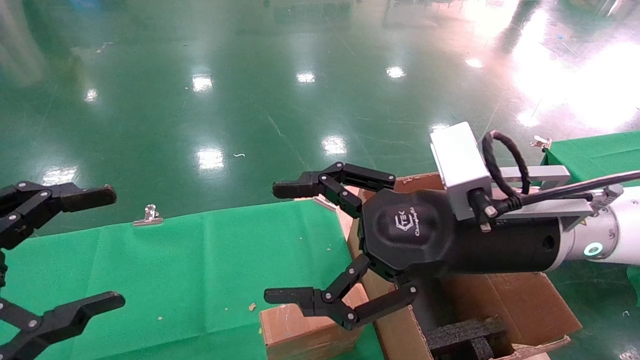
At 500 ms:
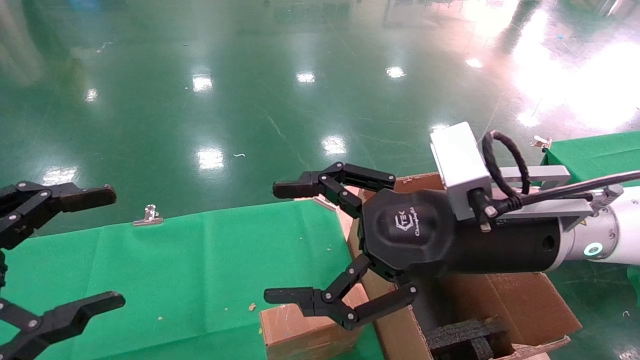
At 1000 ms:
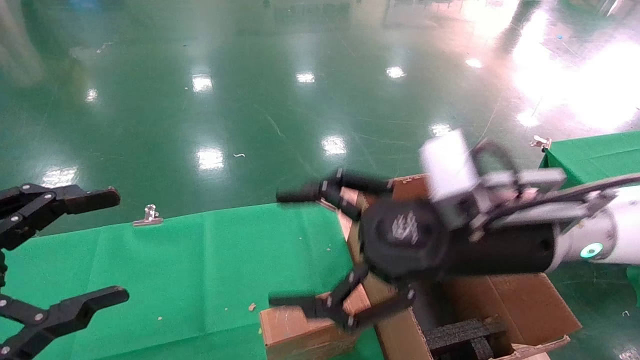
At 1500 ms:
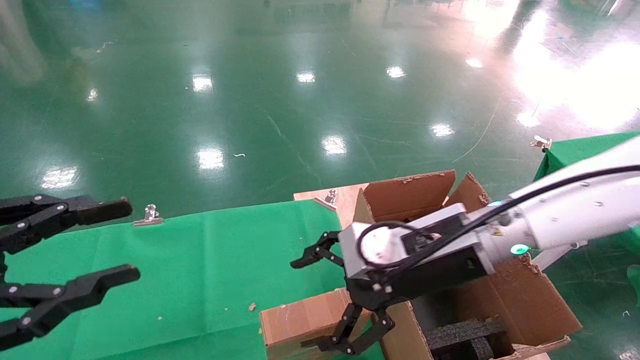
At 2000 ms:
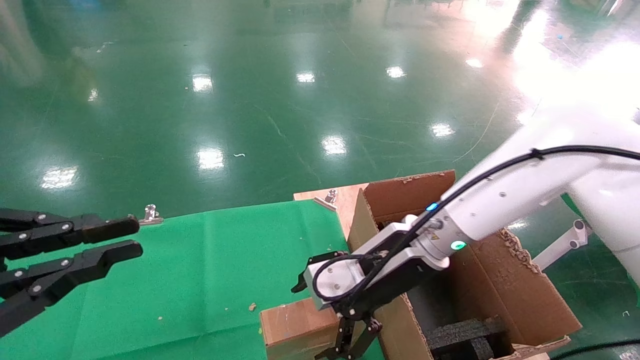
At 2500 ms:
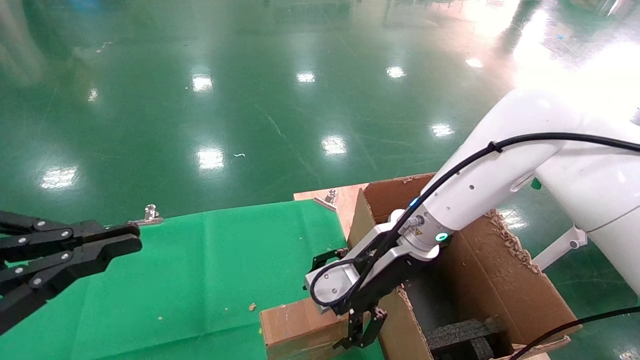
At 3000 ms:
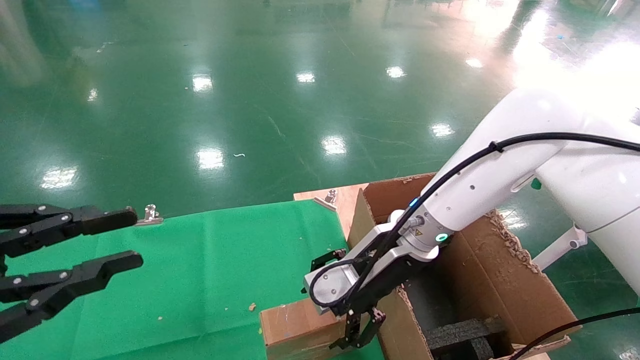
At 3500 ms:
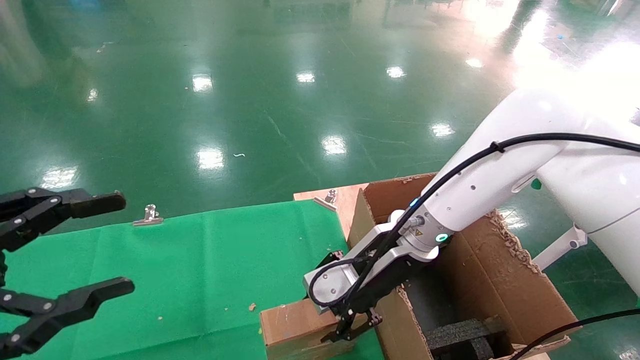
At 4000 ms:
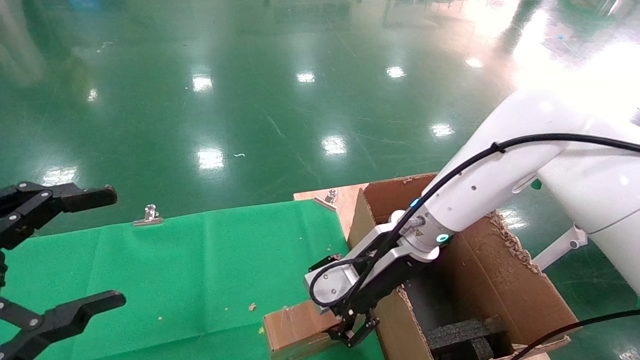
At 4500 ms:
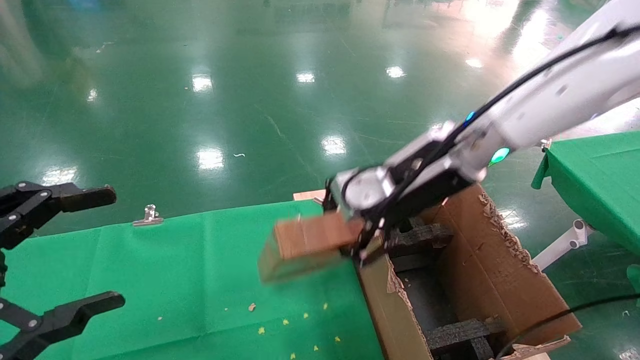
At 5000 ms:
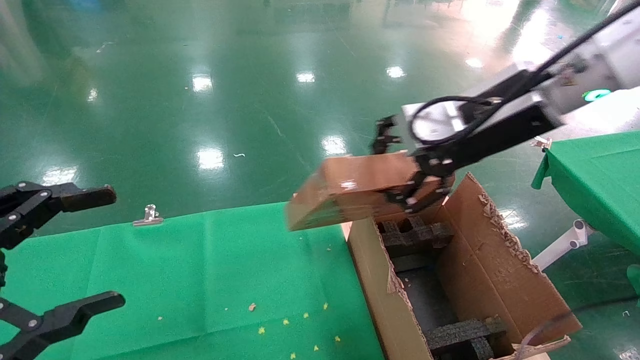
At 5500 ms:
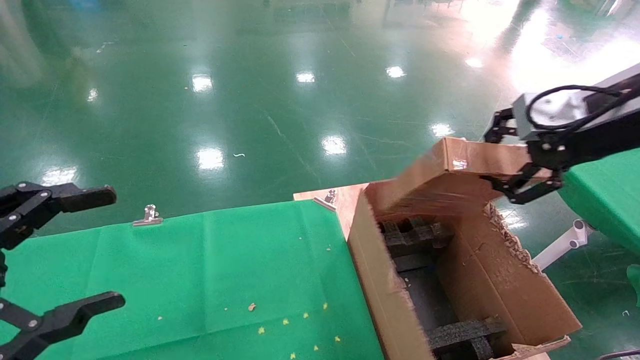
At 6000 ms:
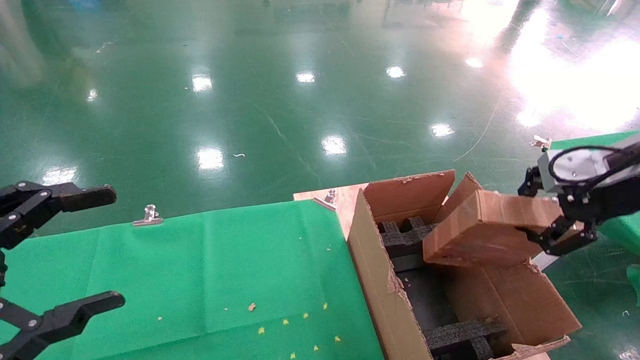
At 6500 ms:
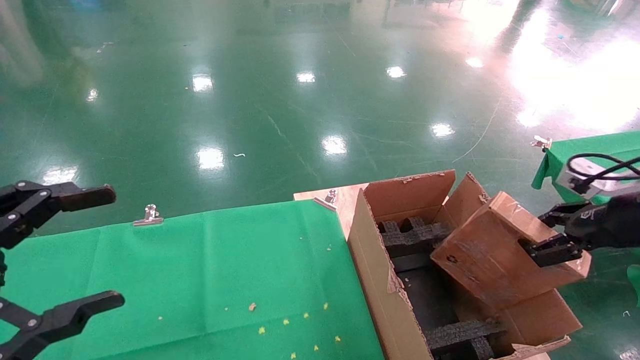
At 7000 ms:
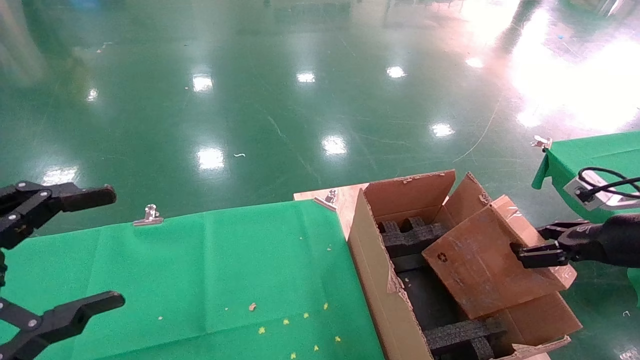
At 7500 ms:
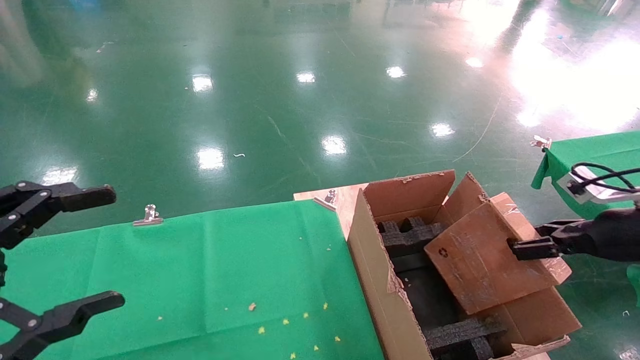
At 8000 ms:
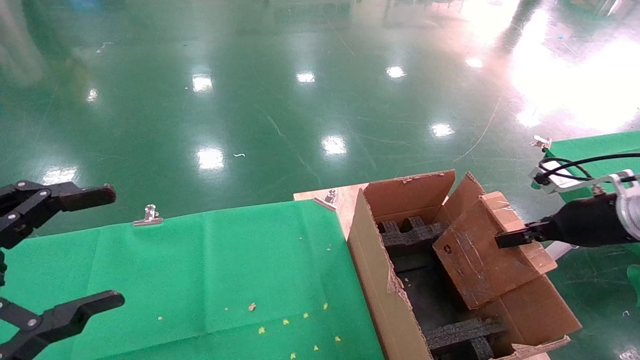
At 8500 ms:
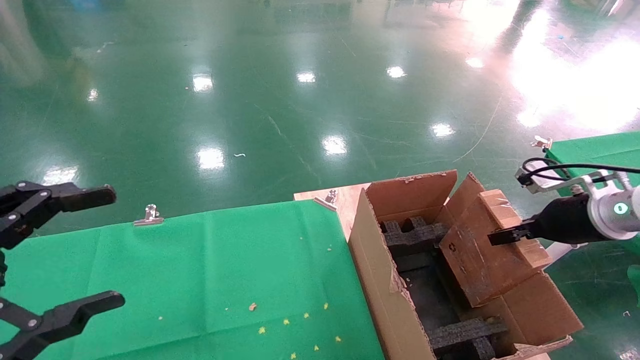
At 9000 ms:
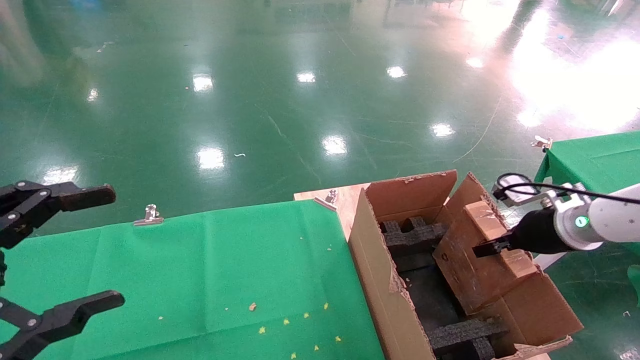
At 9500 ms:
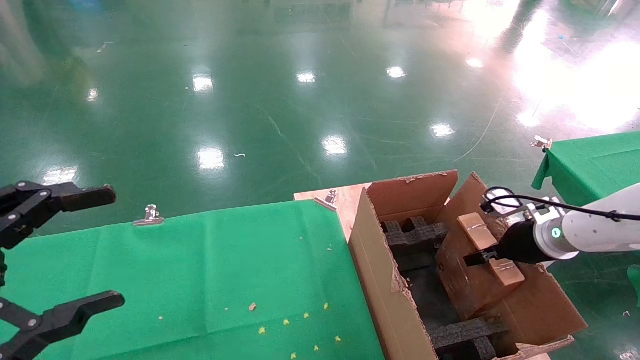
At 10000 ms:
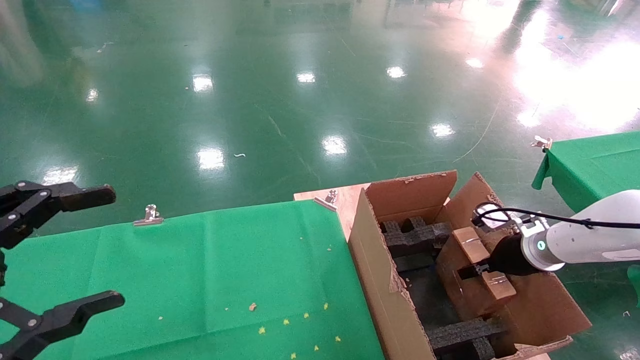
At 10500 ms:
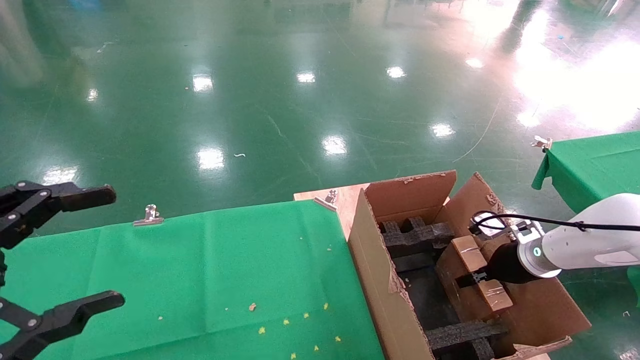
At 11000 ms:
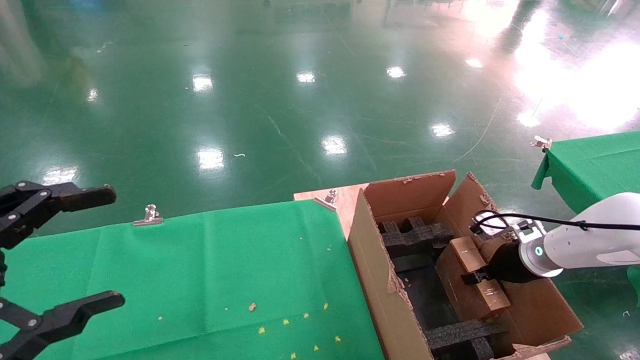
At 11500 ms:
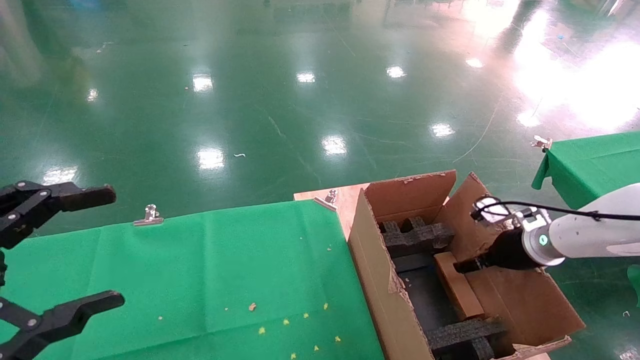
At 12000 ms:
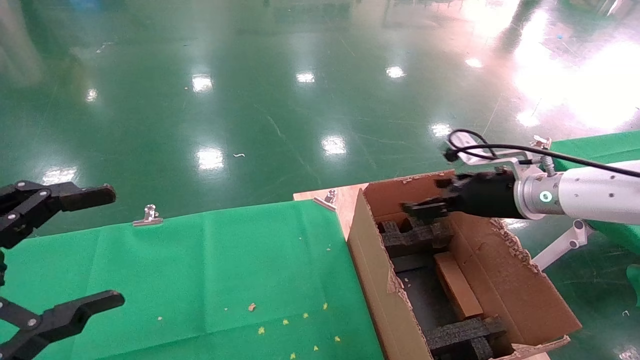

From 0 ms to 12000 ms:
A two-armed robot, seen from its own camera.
Task of the whole recording: using a robotic arm to pick up a cardboard box and palace it the carton.
Step, from 1500 ms to 3500 ms: Pick up the mouse and the power cord paper box.
Step, from 4000 ms to 11500 ms: Place the mouse and the power cord paper box into the container.
From 0 ms to 2000 ms: The left gripper closes up. The right gripper is displaced forward, downward and to the left by roughly 15 cm.
From 2000 ms to 4000 ms: The left gripper opens up, while the right gripper closes.
From 4000 ms to 6000 ms: The right gripper travels to the right by approximately 25 cm.
From 6000 ms to 8000 ms: The right gripper is displaced downward and forward by some 10 cm.
From 8000 ms to 10000 ms: The right gripper goes roughly 15 cm downward and forward.
From 10000 ms to 12000 ms: The right gripper heads upward and to the left, covering roughly 15 cm, and opens.

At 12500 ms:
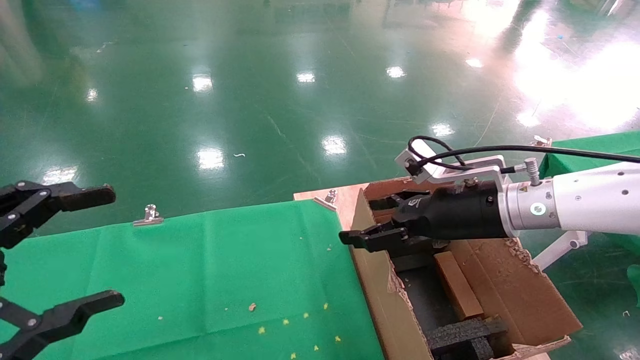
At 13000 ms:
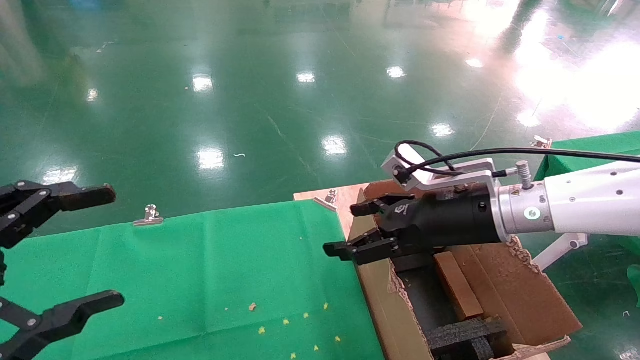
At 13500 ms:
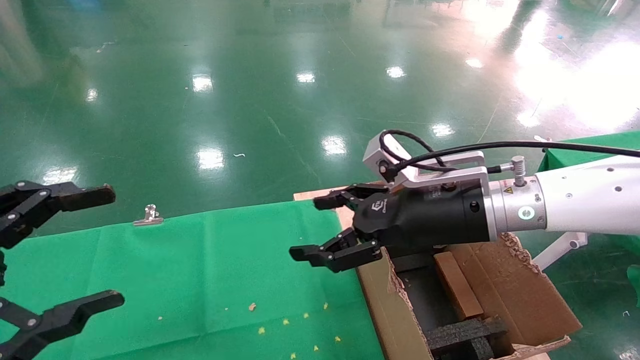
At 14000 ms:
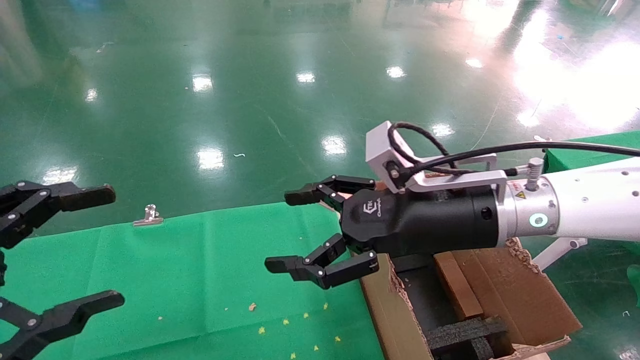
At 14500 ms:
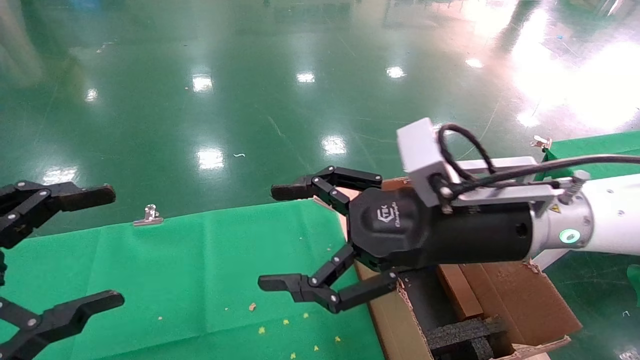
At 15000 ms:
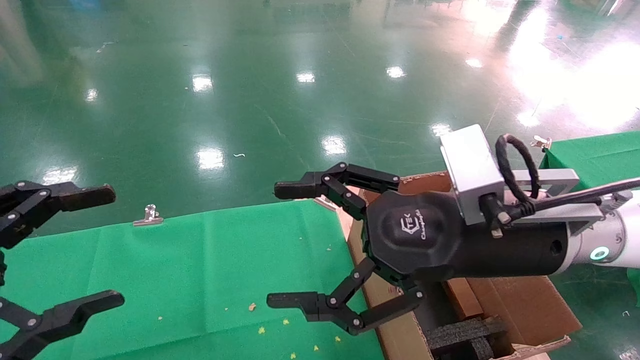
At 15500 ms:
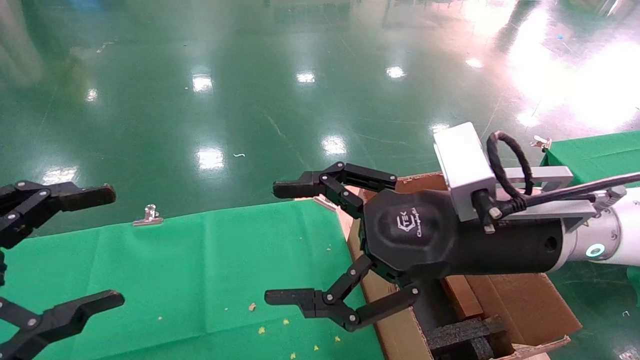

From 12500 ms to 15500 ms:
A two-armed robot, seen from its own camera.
Task of the whole recording: using a robotic arm to pick up a cardboard box and palace it the carton.
From 12500 ms to 14000 ms: The right gripper shifts some 10 cm to the left and backward.
From 14000 ms to 15500 ms: The grippers make only small movements.
